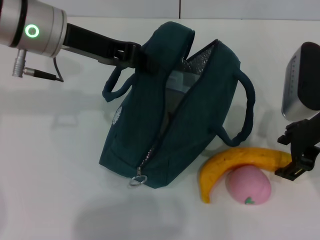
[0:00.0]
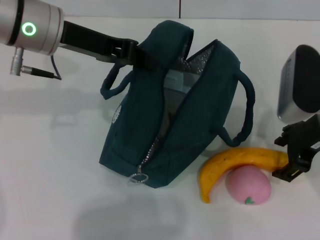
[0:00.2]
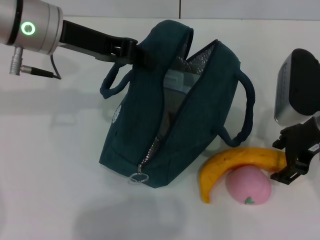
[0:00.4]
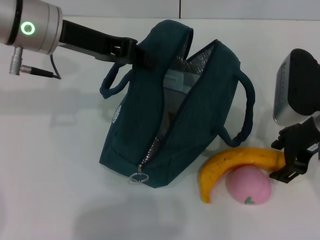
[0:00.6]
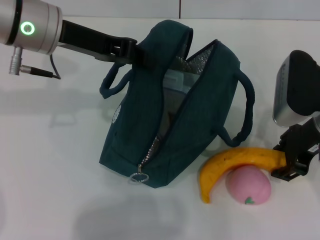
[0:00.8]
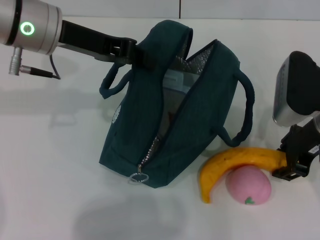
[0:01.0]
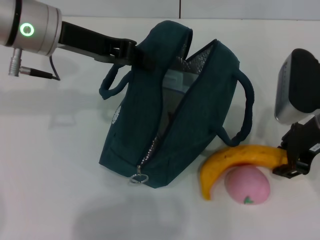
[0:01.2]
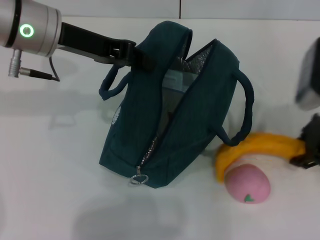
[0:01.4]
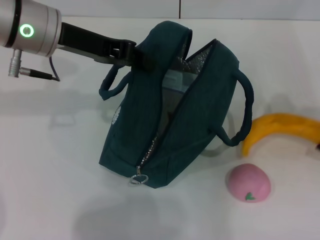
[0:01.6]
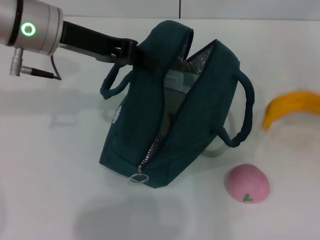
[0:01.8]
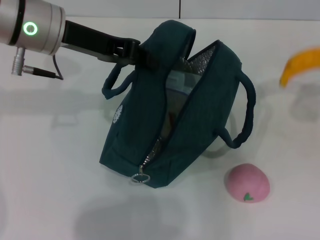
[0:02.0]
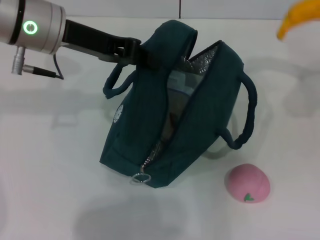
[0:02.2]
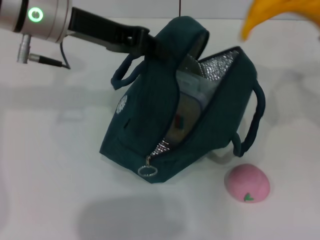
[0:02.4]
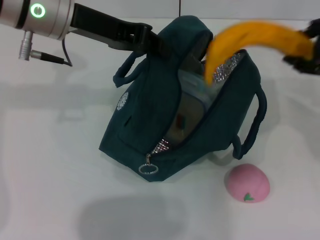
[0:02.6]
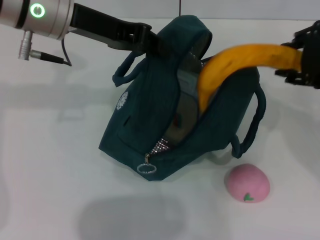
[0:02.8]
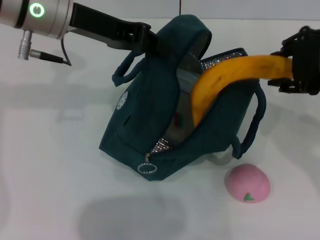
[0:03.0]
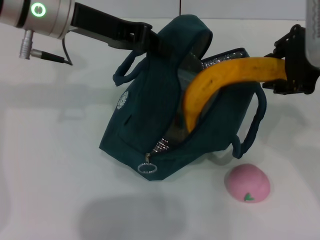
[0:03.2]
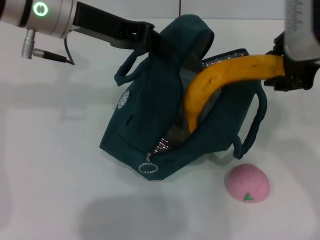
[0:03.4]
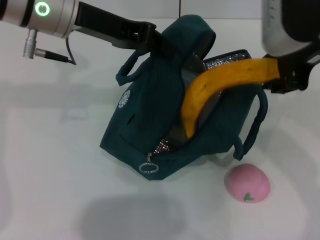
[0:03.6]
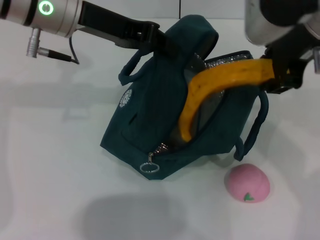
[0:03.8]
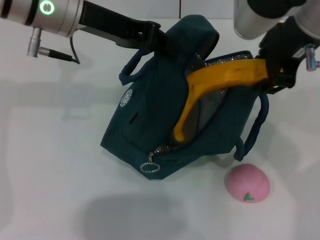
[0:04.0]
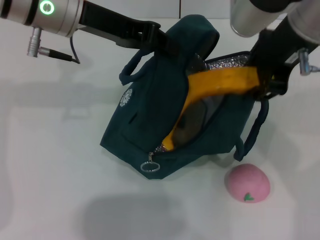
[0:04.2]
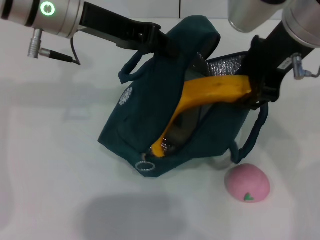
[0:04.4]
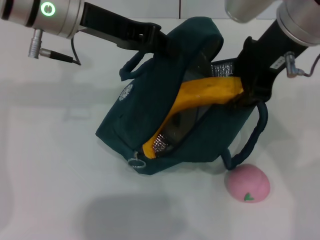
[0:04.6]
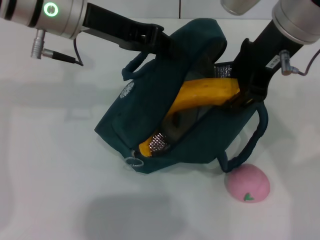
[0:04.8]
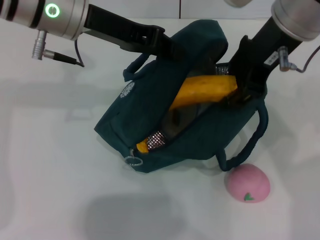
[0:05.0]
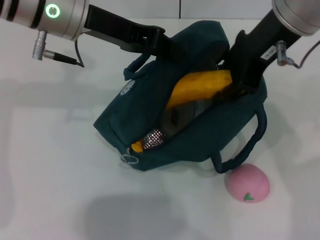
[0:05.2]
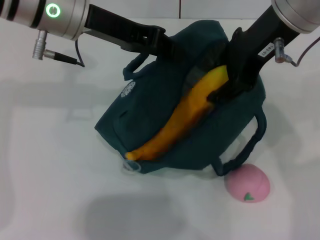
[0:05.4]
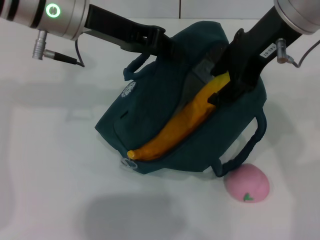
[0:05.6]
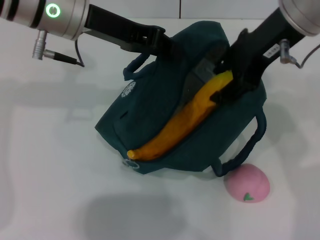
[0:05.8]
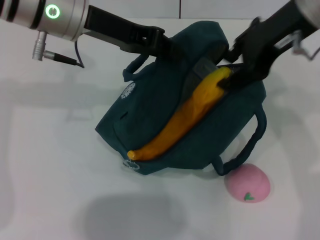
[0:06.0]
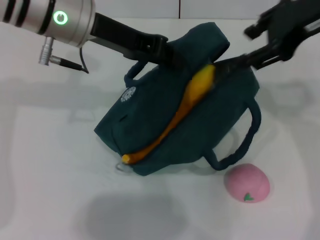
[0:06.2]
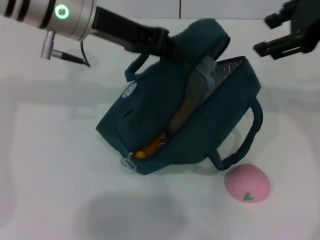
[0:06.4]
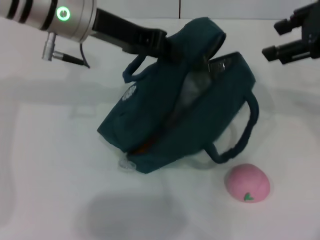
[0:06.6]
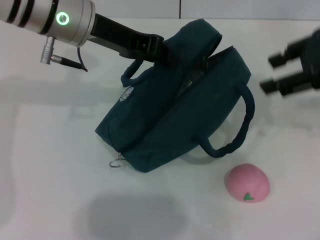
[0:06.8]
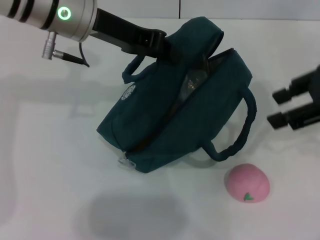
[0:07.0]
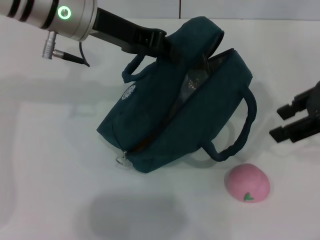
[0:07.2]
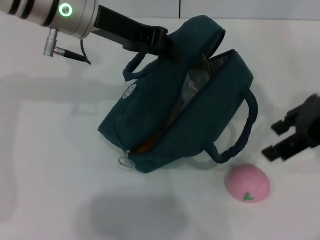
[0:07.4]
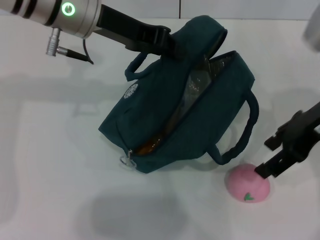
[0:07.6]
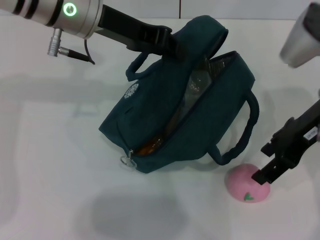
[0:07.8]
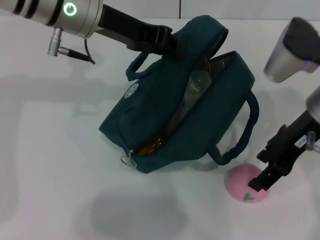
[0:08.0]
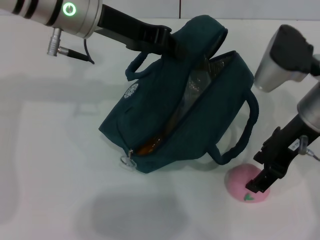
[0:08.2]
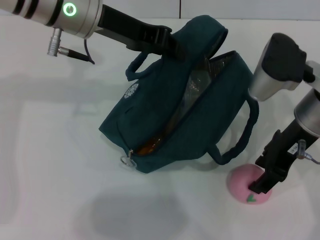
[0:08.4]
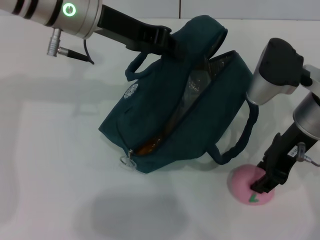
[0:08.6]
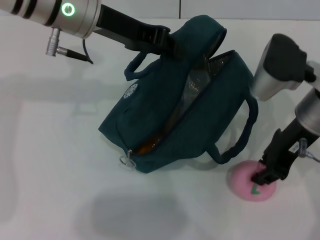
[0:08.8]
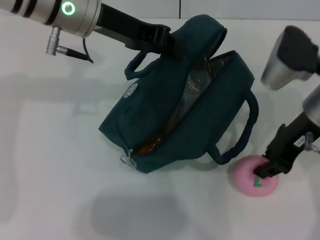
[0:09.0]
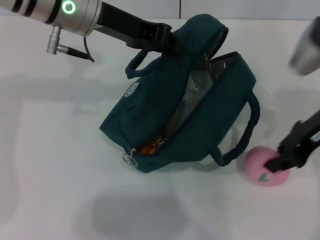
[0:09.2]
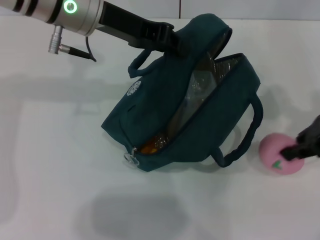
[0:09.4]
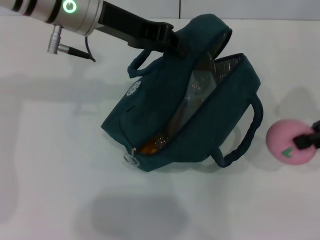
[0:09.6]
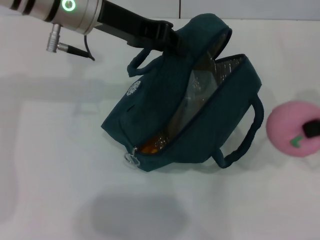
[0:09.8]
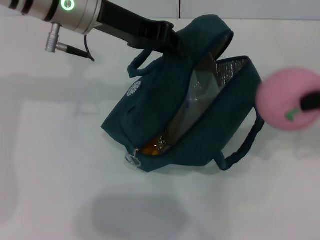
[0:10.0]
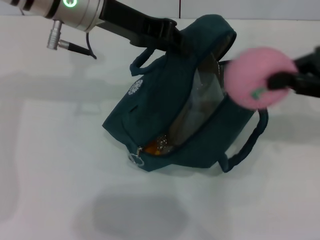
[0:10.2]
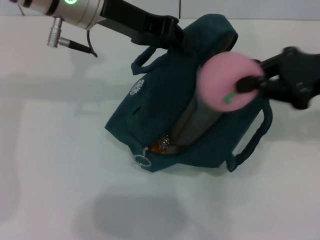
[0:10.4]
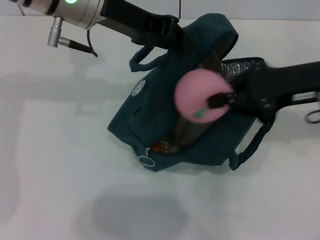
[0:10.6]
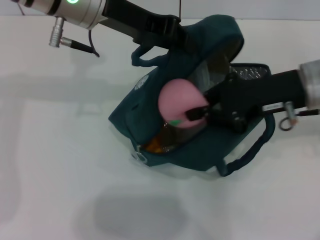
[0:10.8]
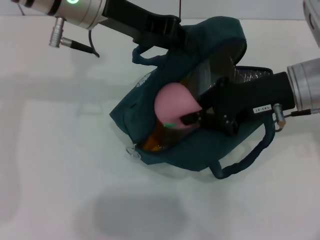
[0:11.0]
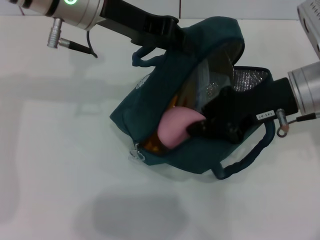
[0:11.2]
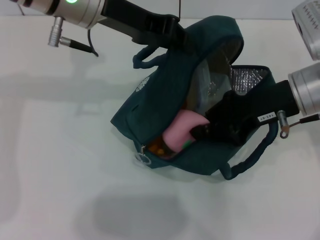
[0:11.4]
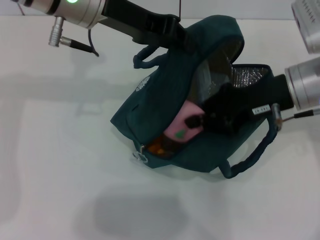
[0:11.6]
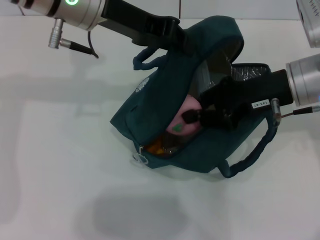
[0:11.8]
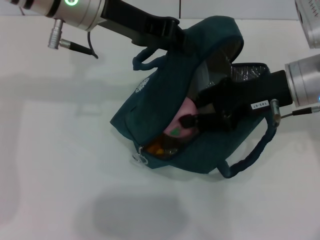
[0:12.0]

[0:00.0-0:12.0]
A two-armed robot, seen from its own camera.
Step, 0:01.2 to 0:06.0: Put the banana into the lunch bag with your right hand.
Step, 0:06.2 to 0:08.4: Grab the peach with your right hand.
0:00.0 to 0:01.6: The right gripper goes roughly 5 cm to the right, and closes.
0:01.6 to 0:03.0: The right gripper shifts about 10 cm upward and to the left.
0:03.0 to 0:04.4: The right gripper shifts some 10 cm to the left.
0:04.4 to 0:06.0: The grippers stay close to where they were, moving slightly.
0:06.0 to 0:07.6: The right gripper moves downward and to the right, some 10 cm.
0:07.6 to 0:09.0: The right gripper changes place by approximately 5 cm, and closes its fingers.
0:09.0 to 0:10.4: The right gripper is displaced to the right by some 5 cm.
0:10.4 to 0:12.0: The right gripper shifts roughly 5 cm to the left.

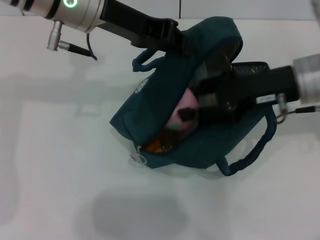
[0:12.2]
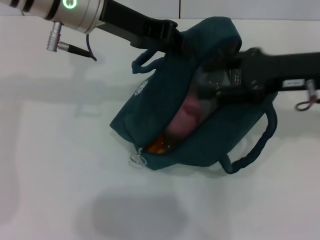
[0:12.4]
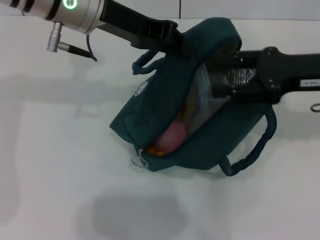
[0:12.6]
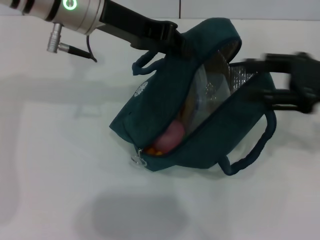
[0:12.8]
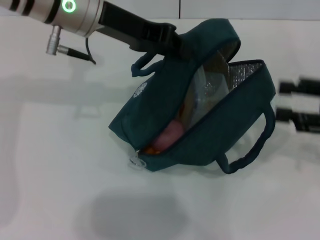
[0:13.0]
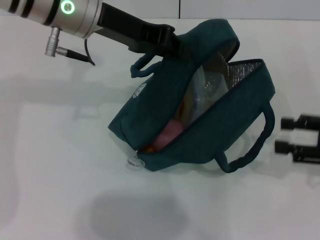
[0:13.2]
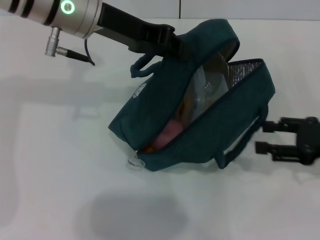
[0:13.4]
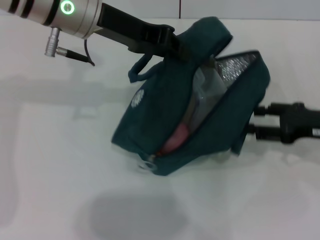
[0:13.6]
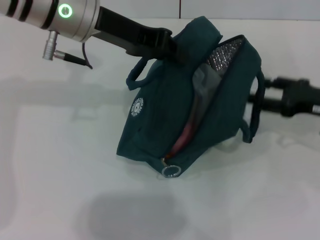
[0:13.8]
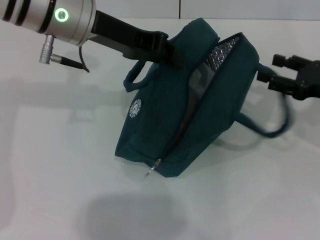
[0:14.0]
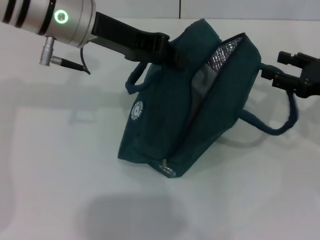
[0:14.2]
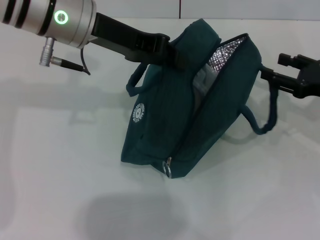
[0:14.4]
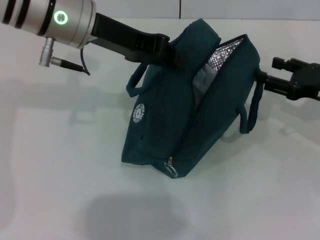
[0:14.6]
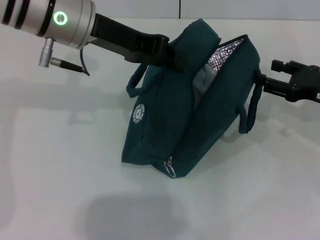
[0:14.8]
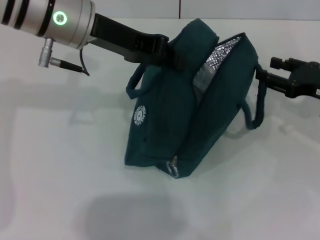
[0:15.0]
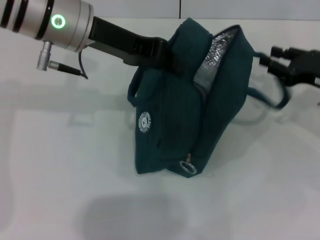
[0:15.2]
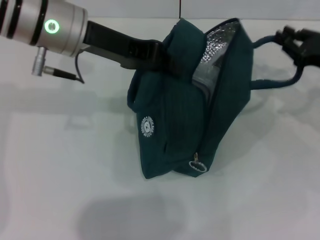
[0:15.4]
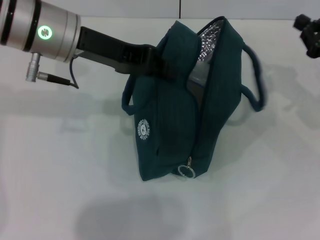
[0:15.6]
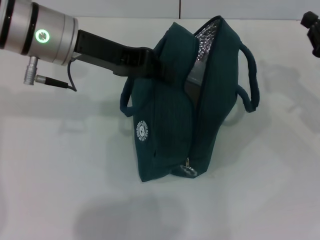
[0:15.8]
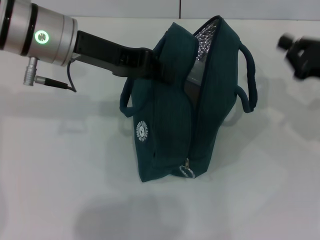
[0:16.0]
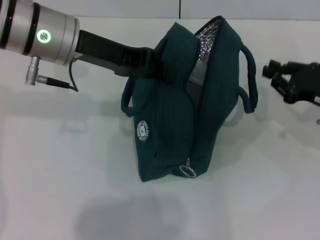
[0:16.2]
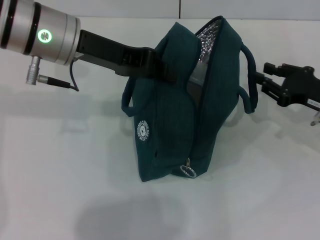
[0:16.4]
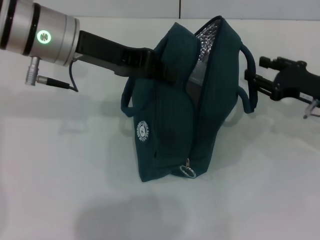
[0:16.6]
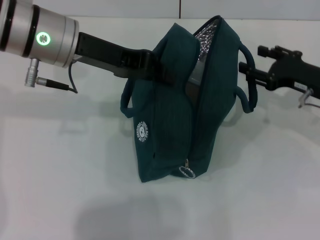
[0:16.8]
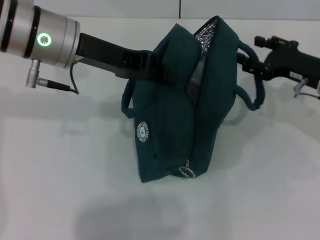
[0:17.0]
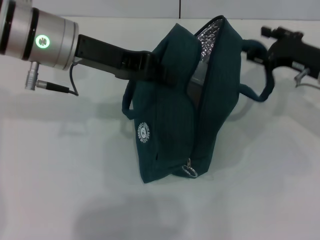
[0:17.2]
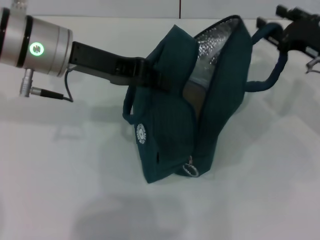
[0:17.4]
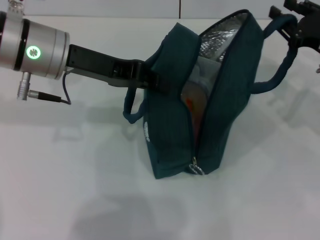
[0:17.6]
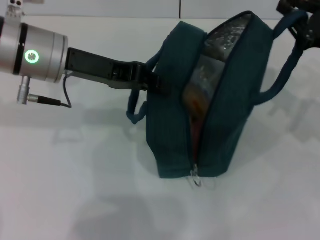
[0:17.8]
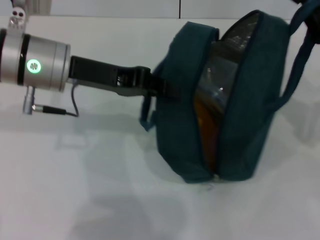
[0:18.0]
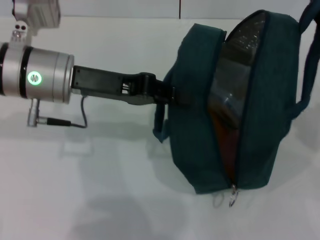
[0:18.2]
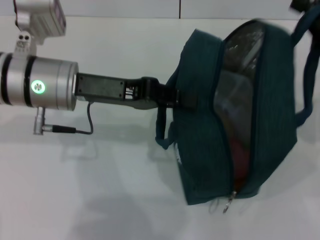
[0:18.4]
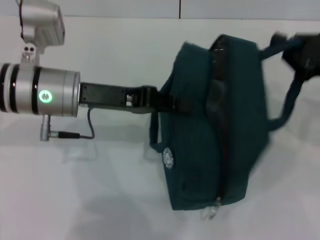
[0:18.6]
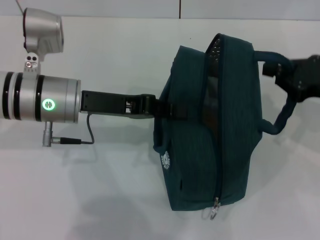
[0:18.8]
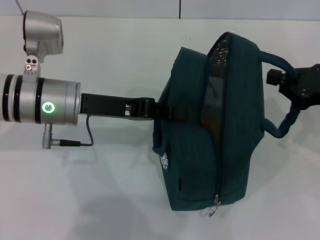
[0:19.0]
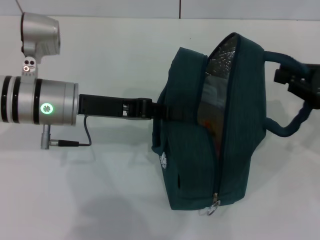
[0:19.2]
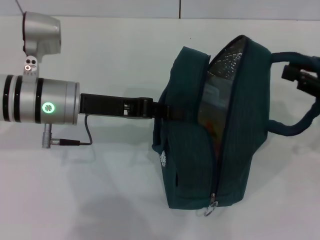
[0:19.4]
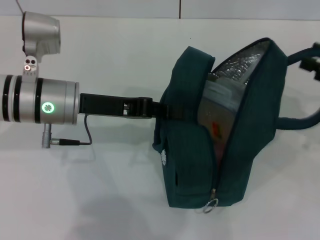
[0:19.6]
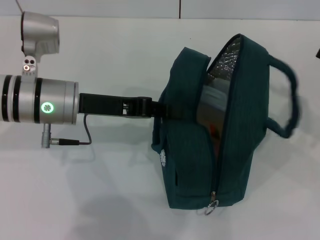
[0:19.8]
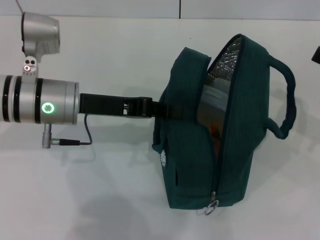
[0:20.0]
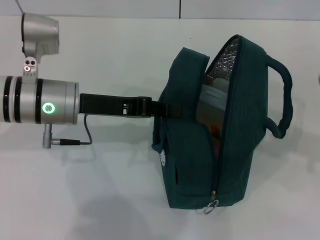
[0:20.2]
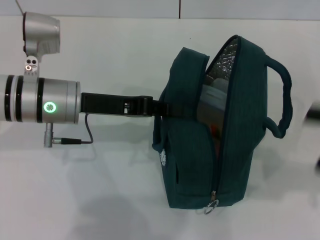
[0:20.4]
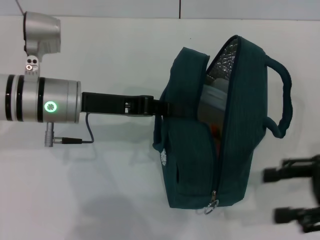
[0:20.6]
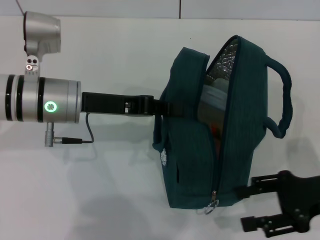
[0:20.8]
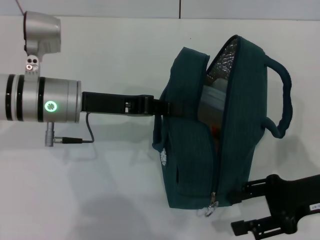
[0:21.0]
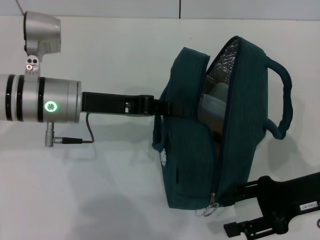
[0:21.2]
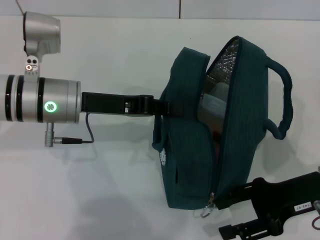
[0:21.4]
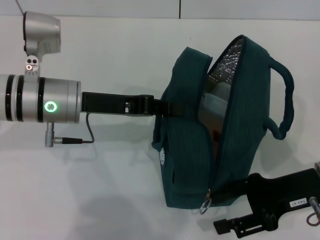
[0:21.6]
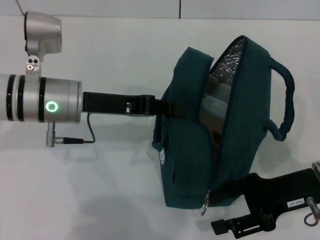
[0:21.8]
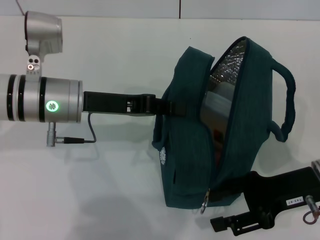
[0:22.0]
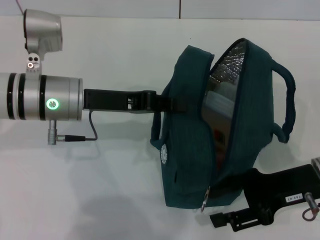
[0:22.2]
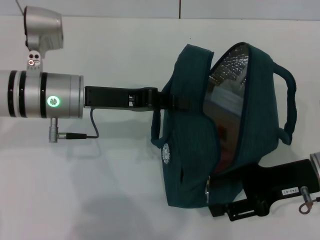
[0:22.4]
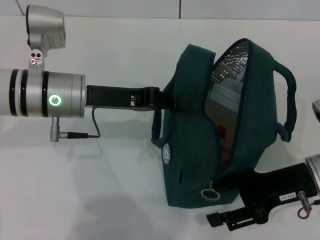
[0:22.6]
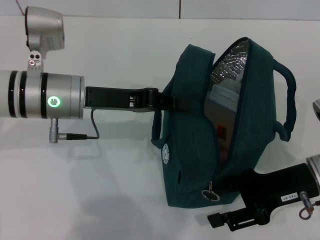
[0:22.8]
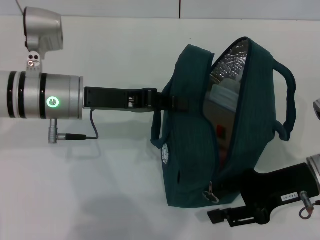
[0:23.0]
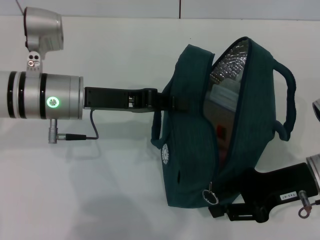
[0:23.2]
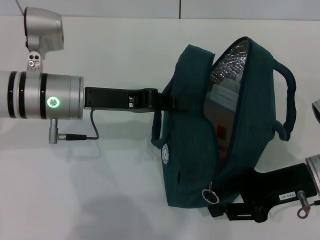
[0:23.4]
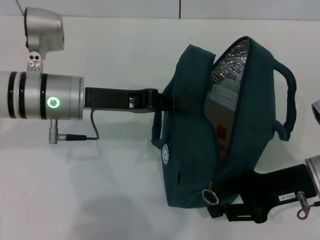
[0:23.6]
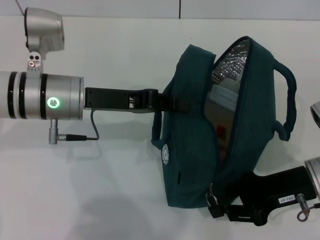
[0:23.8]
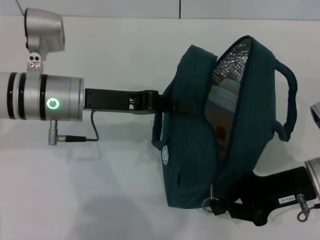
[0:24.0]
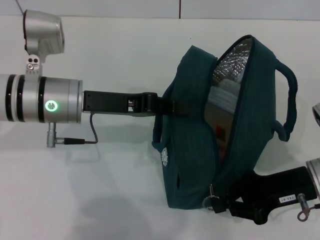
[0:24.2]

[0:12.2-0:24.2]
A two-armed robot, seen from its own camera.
Step, 0:12.6 to 0:19.6: Hold the lunch bag with your right hand.
0:12.2 to 0:13.8: The right gripper travels to the right and downward by approximately 10 cm.
0:15.2 to 0:16.6: The right gripper closes and opens again.
0:16.6 to 0:18.2: The left gripper changes place by about 5 cm. Meanwhile the right gripper goes some 10 cm upward, and closes its fingers.
0:18.2 to 0:19.8: The right gripper travels to the right by about 5 cm, and opens its fingers, while the left gripper goes approximately 5 cm downward.
0:19.8 to 0:21.2: The right gripper moves to the left and downward, roughly 15 cm.
0:22.6 to 0:24.2: The right gripper closes up.
